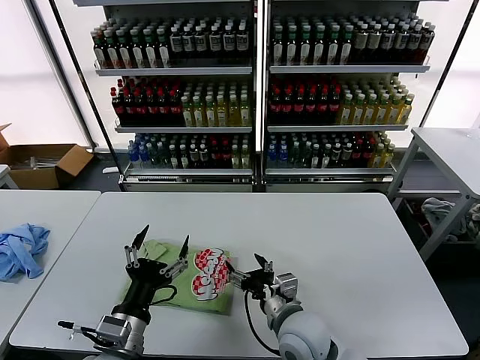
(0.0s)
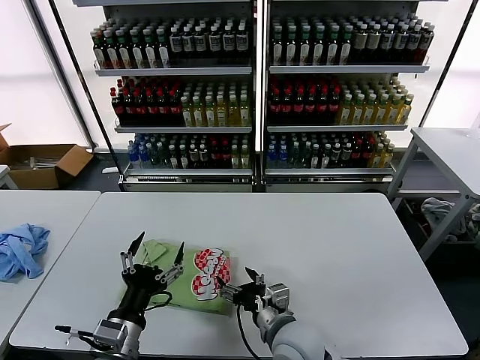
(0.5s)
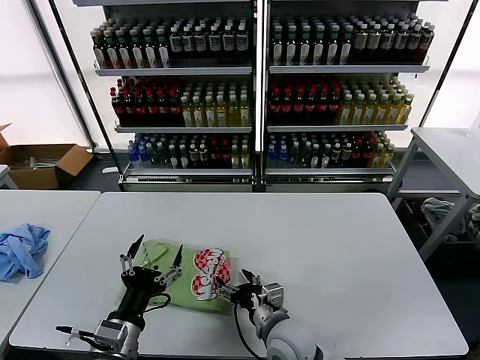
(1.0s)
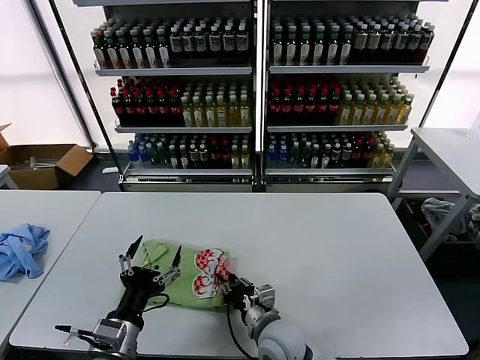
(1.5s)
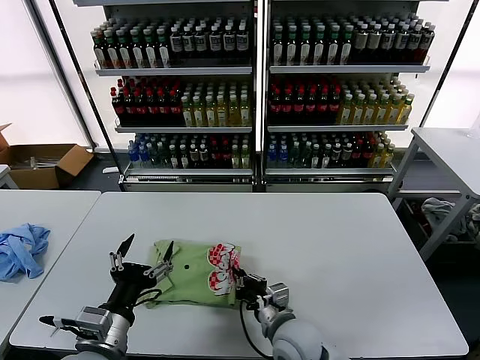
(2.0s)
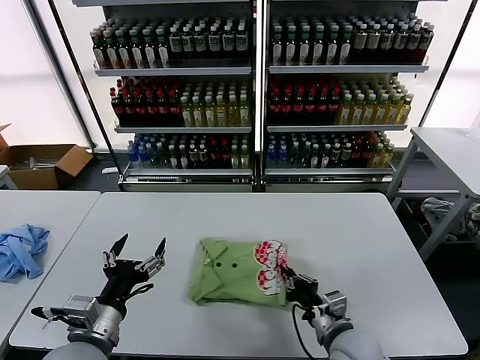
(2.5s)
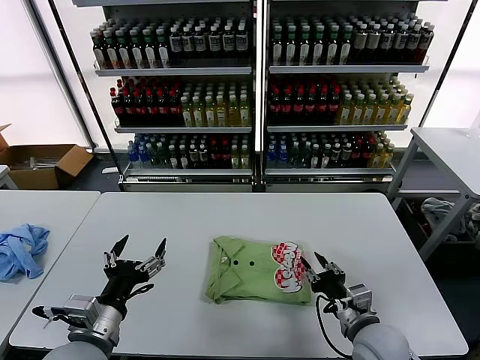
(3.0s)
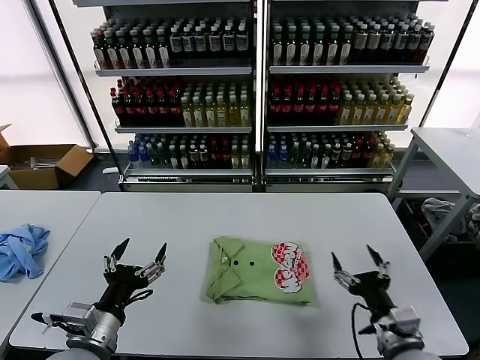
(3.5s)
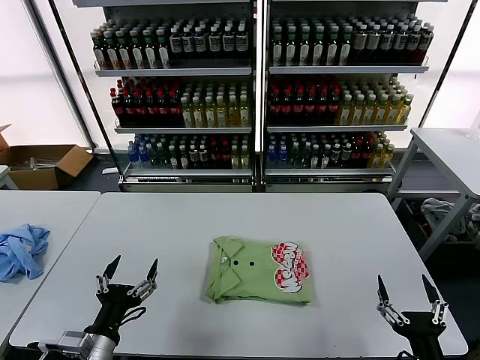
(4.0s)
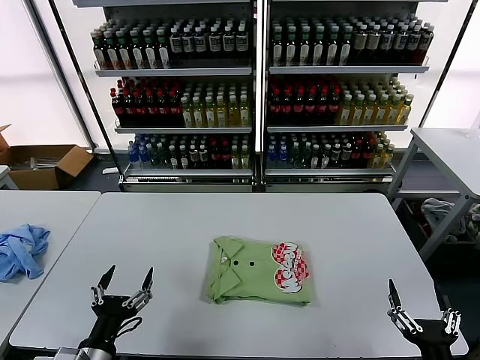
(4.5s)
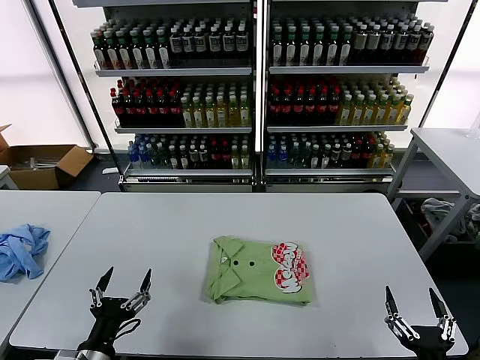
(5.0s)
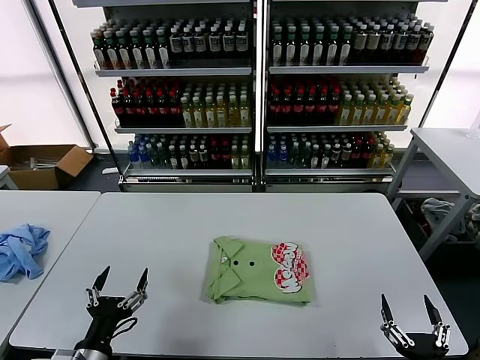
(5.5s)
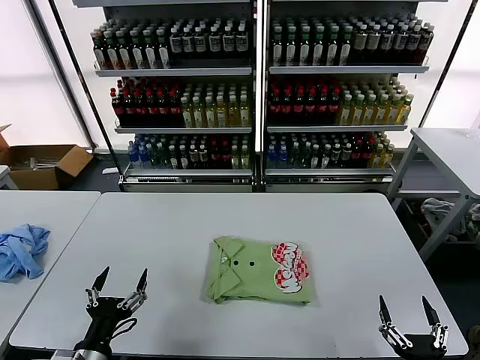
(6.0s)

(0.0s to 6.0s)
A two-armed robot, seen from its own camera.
Task of the whole recording: fold and organize the clothes.
Step, 0.0s - 2.5s: Drag the clothes to the center of the table.
0.0s - 2.0s: The right gripper closes.
2.0s - 4.0s: The left gripper ends up some 5 cm from where it was, while the right gripper heads to the right and backward, covering about 30 cm, and opens up.
4.0s - 6.0s: The grippers move only a little.

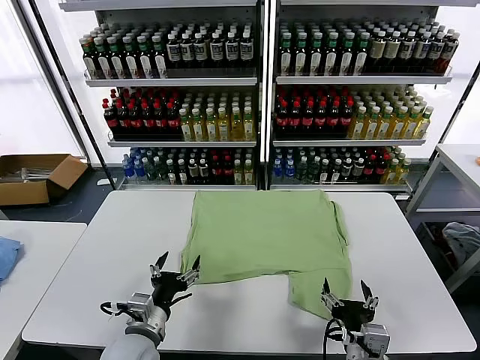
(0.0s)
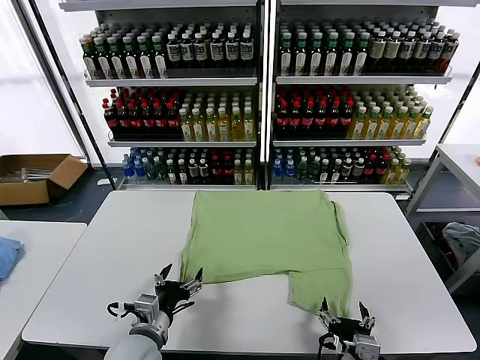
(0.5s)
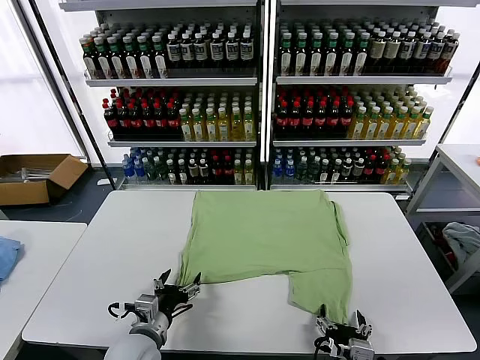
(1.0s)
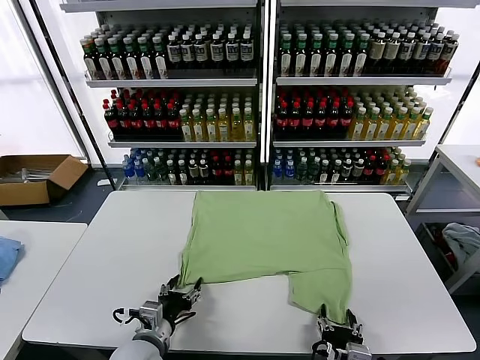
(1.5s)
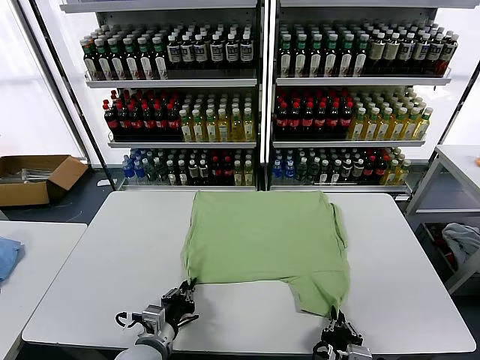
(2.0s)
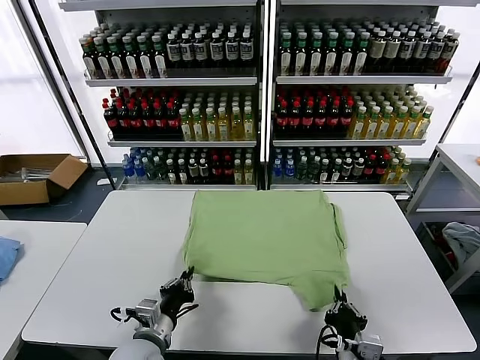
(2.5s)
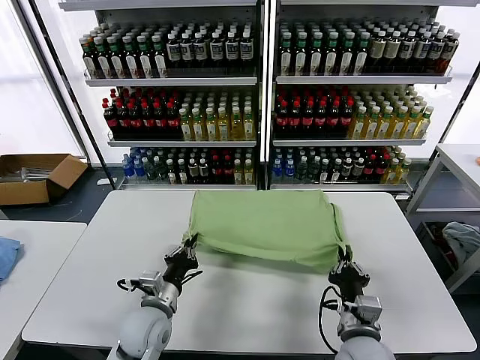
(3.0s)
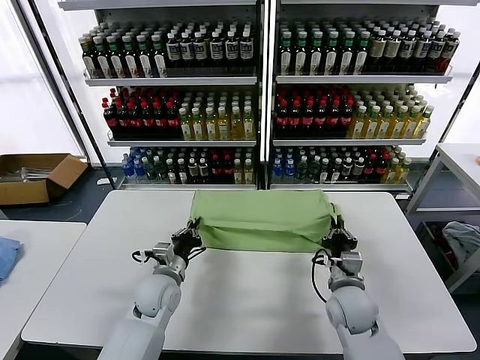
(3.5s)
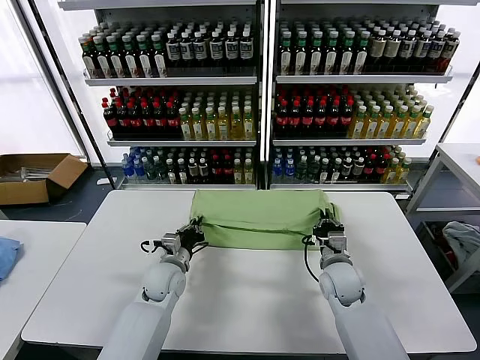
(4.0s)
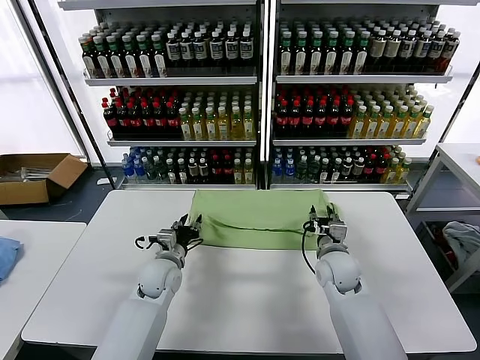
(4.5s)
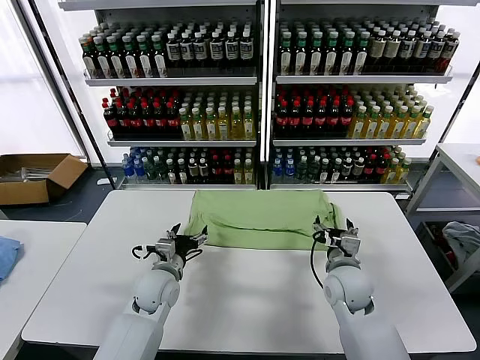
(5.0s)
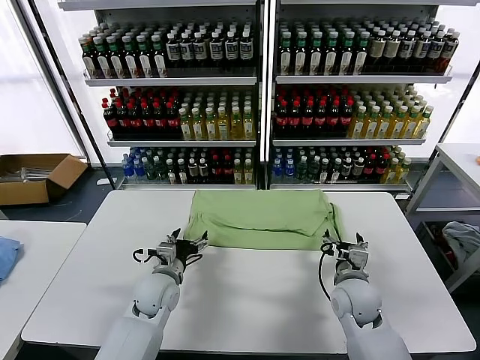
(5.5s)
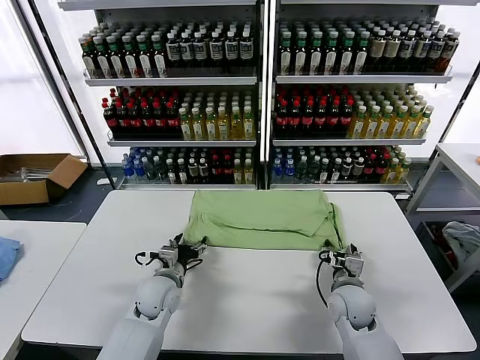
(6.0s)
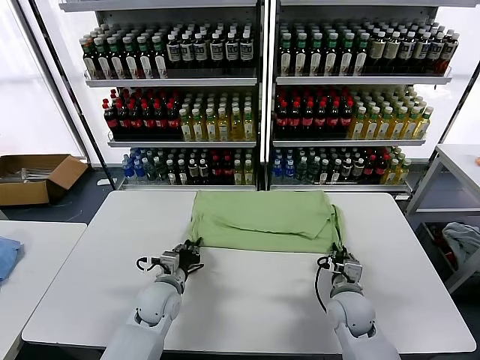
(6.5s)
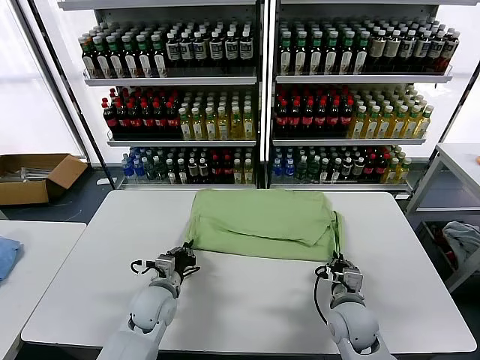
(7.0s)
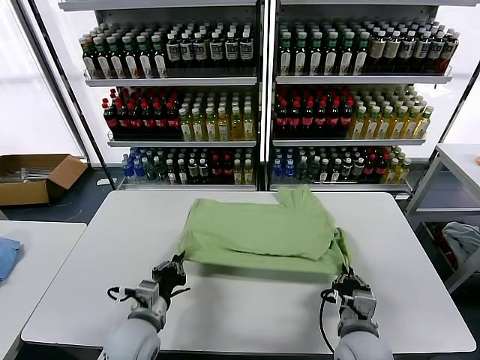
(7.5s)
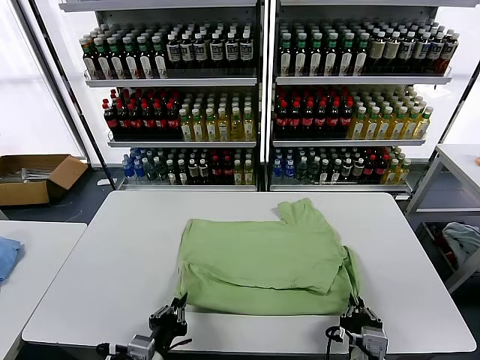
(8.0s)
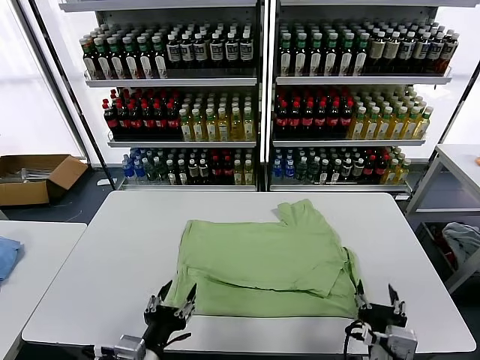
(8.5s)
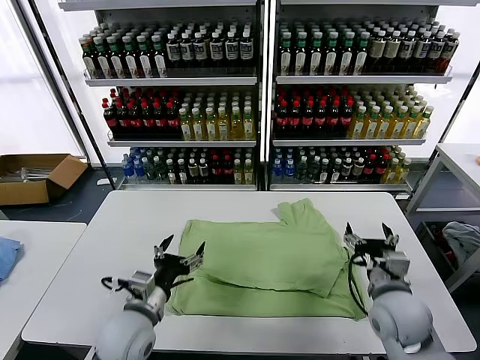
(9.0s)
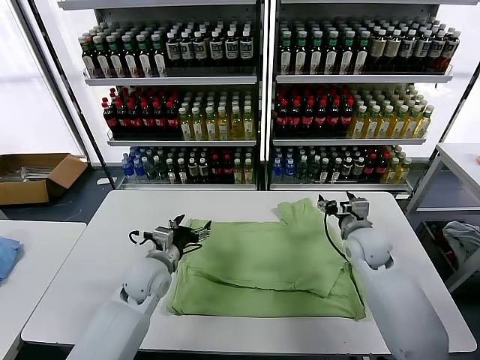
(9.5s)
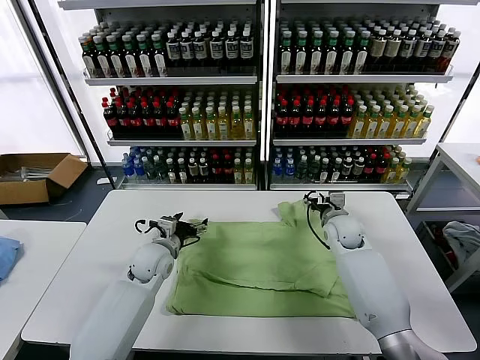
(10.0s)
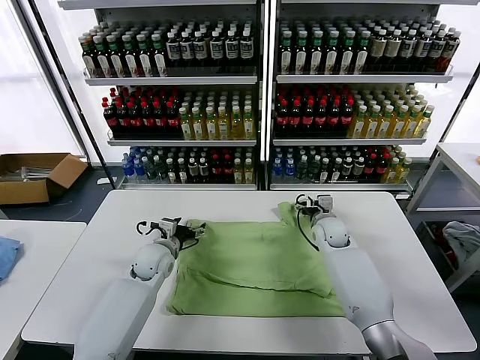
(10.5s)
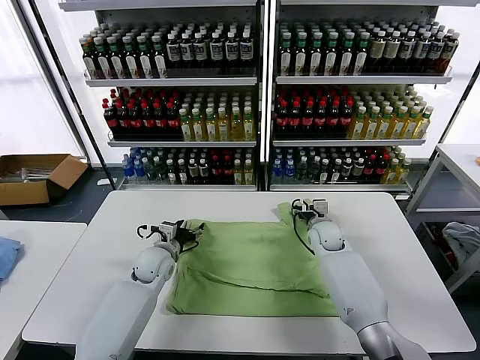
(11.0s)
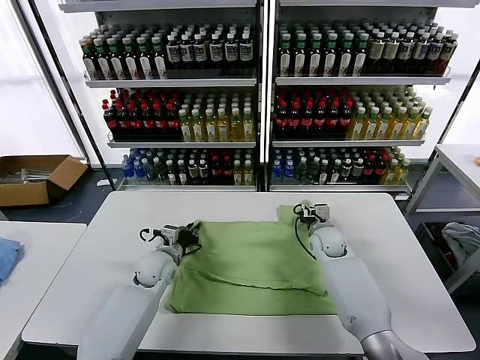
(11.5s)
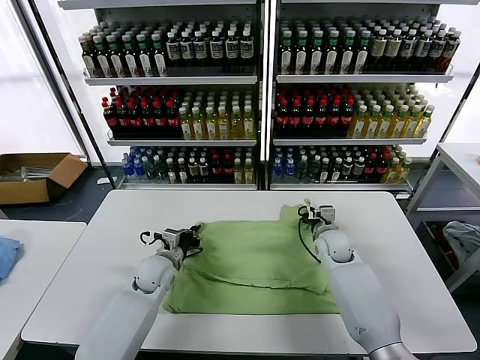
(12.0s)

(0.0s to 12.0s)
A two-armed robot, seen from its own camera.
Task of the whole recording: fold and organize the clothes.
Step, 0.0s - 2.0s: use both grippers simultaneously to clamp the lower edge of the clothing fabric.
Step, 2.5s - 4.5s: use both grippers to drag the lower edge of the fabric forward and fold it over the upper edge.
Step, 5.0s - 8.0s: Drag the clothes downward with both gripper.
Step, 8.5s - 11.5s: use both grippers simultaneously to clamp the upper edge of the clothing fabric.
2.0s - 4.0s: Both grippers move forward, about 25 cm.
4.0s - 6.0s: The left gripper opens. Meanwhile the right gripper goes some 5 cm backward, and opens.
6.0s - 8.0s: Both grippers move backward, some 20 cm. The left gripper closes up. Meanwhile the right gripper closes up.
8.0s - 10.0s: The two grippers go some 35 cm forward. The left gripper opens up; the right gripper opens its fingers.
10.0s - 12.0s: The right gripper closes its fingers; the left gripper closes its fingers.

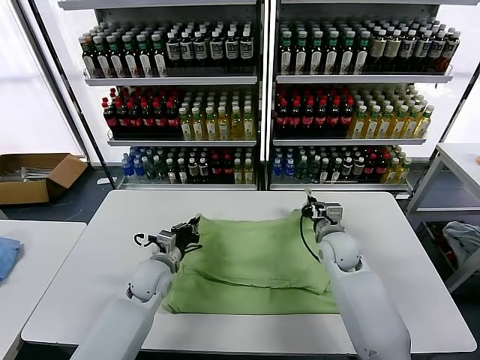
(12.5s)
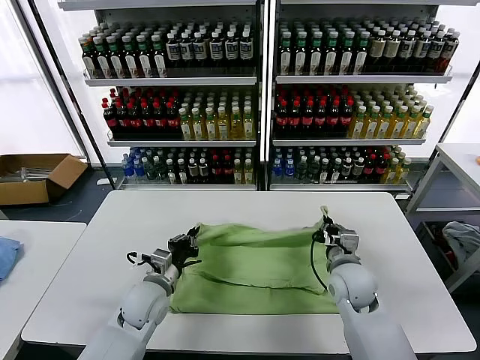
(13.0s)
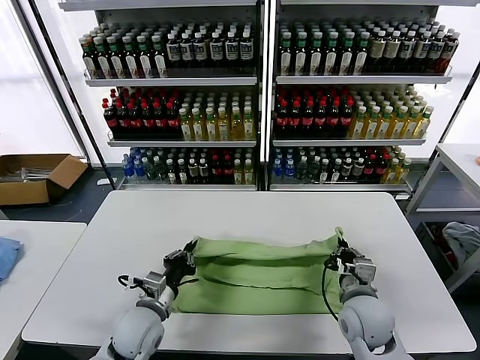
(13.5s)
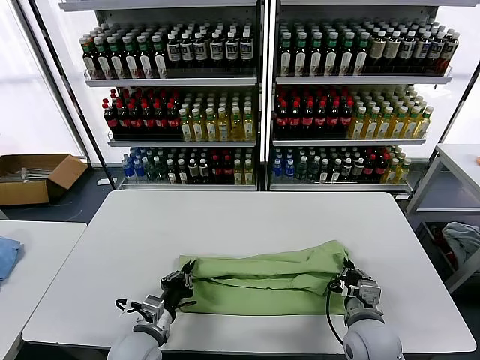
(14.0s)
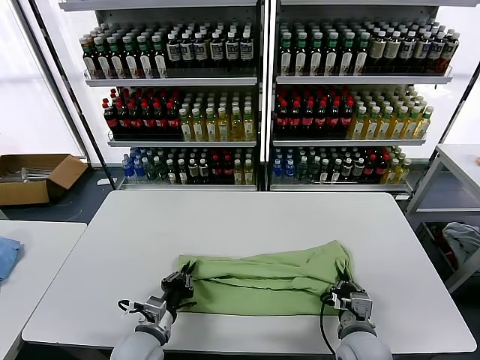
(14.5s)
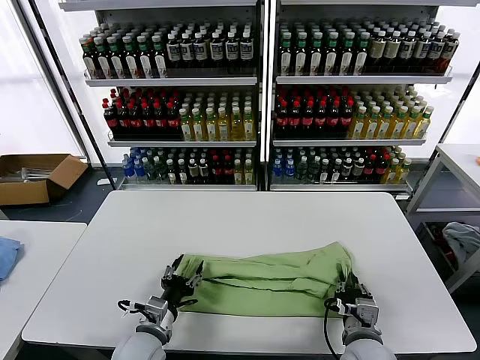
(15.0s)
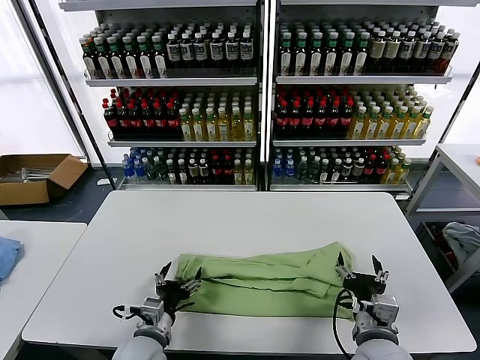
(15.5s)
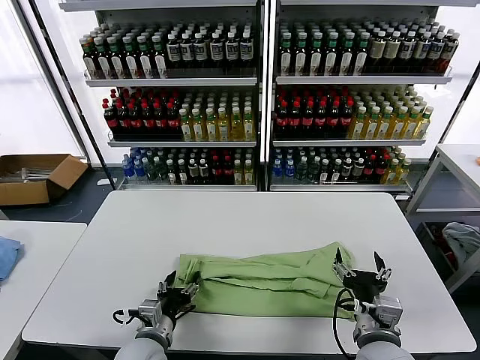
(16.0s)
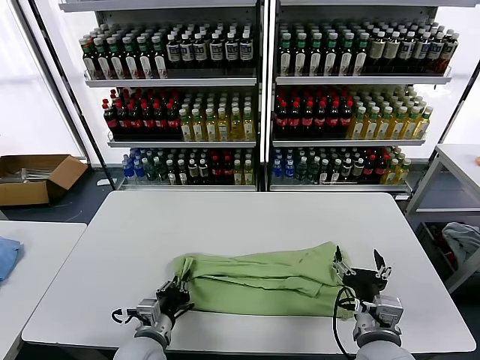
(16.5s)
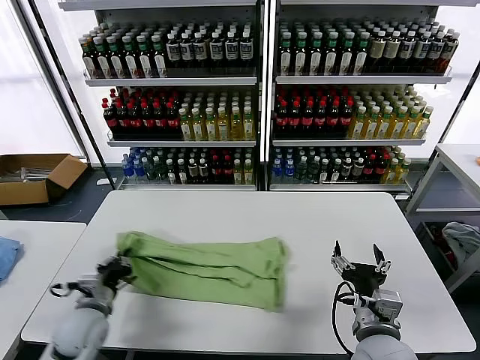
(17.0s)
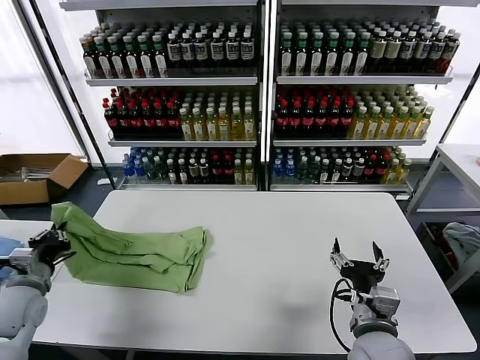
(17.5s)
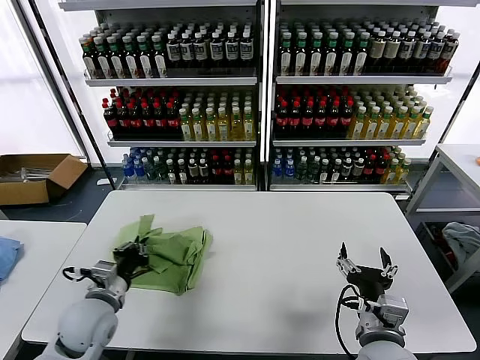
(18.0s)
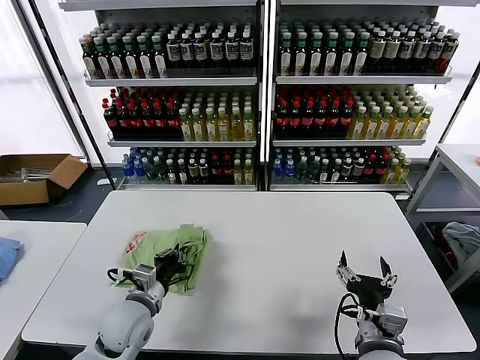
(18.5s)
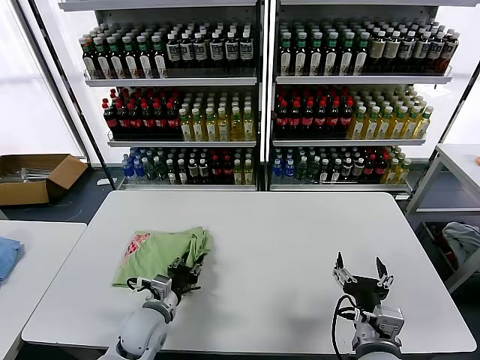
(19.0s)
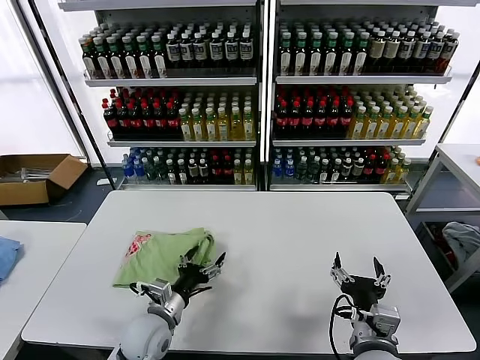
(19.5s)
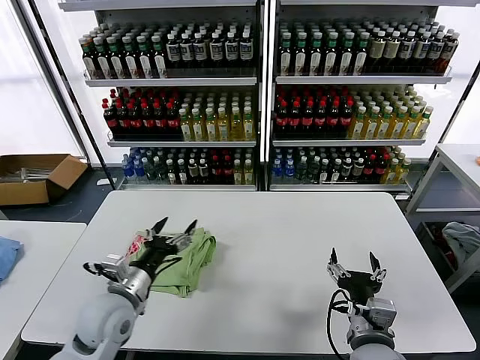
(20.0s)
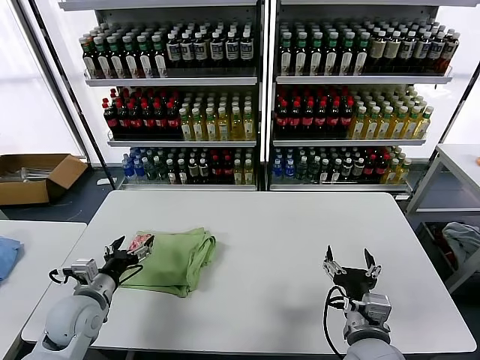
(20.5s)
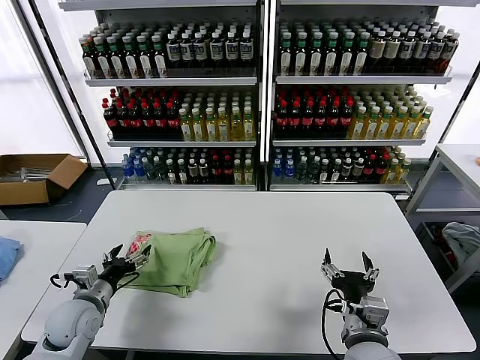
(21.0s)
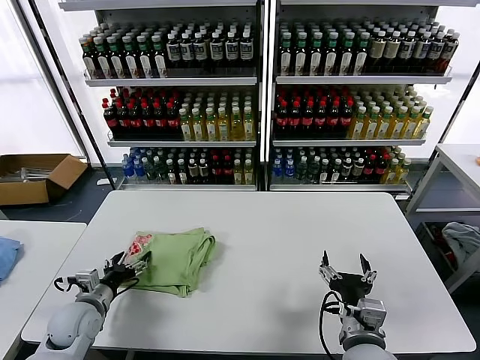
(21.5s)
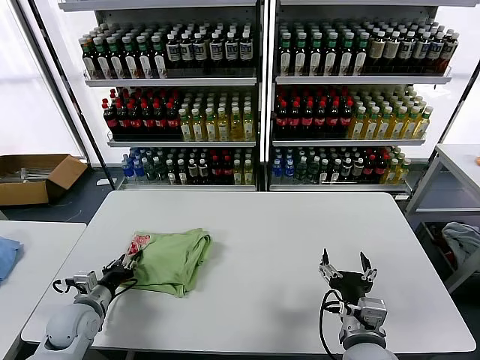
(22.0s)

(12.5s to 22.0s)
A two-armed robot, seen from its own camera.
Task of the whole recording: fold and organize the clothes.
Step, 12.5s - 15.0s: use both grippers to drag the upper edge of the fabric backward and fold it over the lower edge.
Step, 15.5s - 16.0s: use the left gripper to clamp the left edge of the fabric.
Step, 17.0s - 19.5s: use the left gripper to drag the left edge of the fabric to the left and folds it over the right edge.
12.5s - 14.5s: Both grippers move backward, roughly 20 cm.
14.5s - 16.5s: The right gripper shifts roughly 10 cm upward, and opens up; the left gripper opens, then closes once more.
16.5s - 18.0s: The left gripper heads to the left and upward, covering roughly 15 cm.
18.0s - 20.0s: The left gripper shifts approximately 5 cm to the right, and opens up.
20.0s - 22.0s: The left gripper moves to the left and downward, about 15 cm, and closes its fingers.
